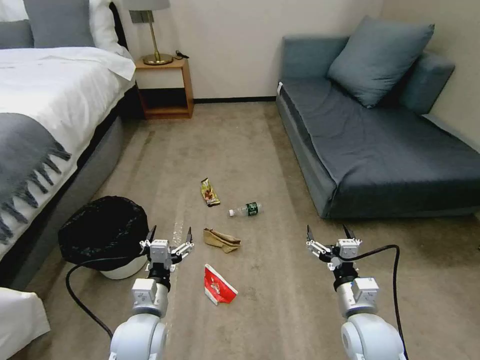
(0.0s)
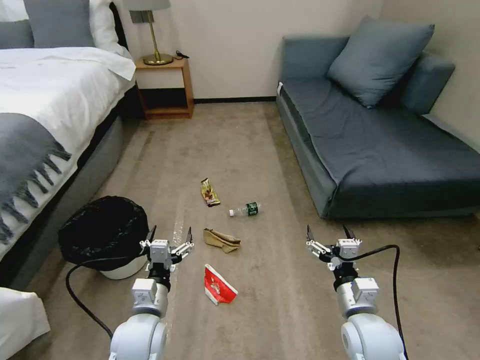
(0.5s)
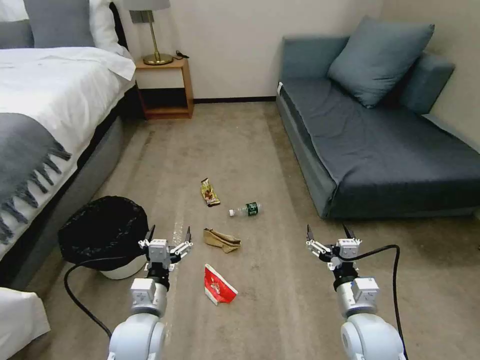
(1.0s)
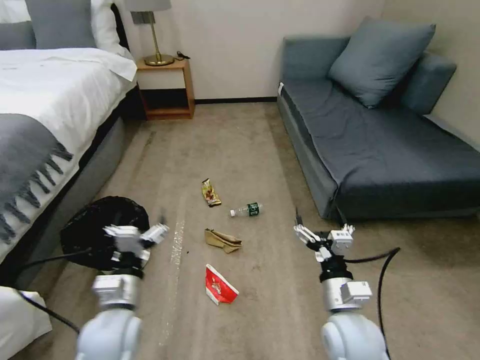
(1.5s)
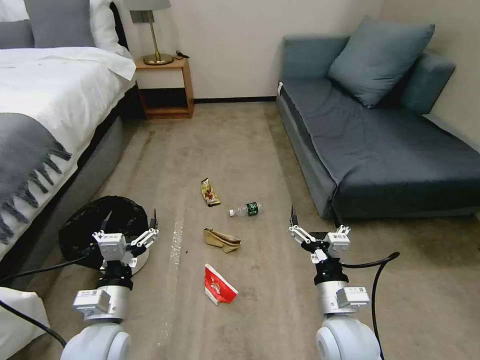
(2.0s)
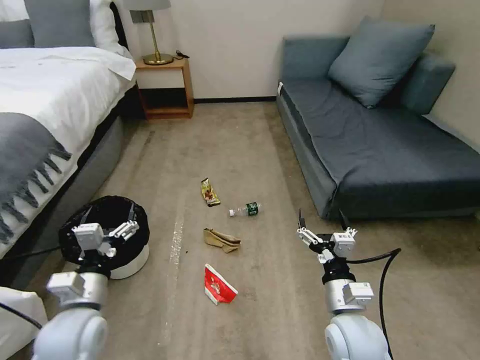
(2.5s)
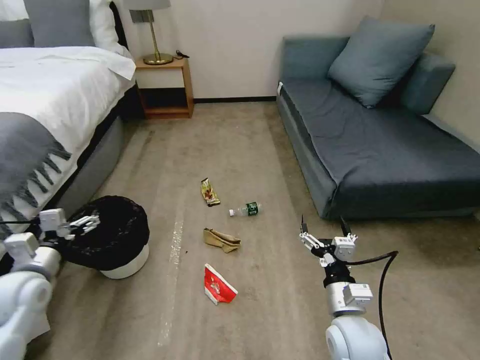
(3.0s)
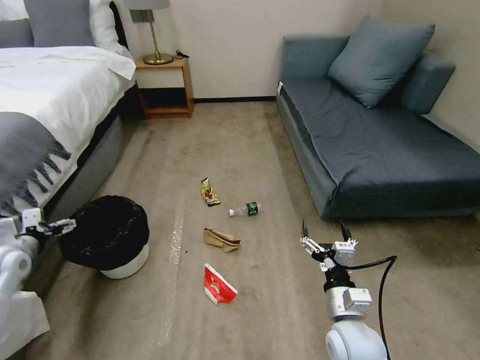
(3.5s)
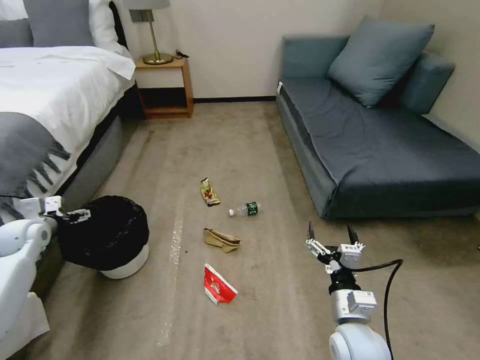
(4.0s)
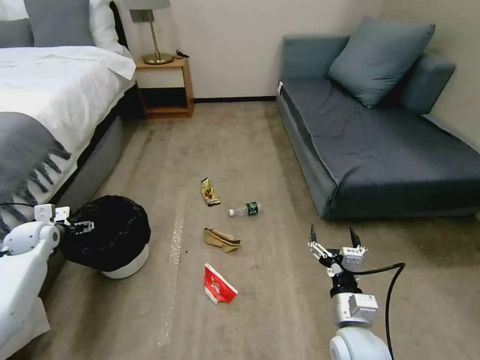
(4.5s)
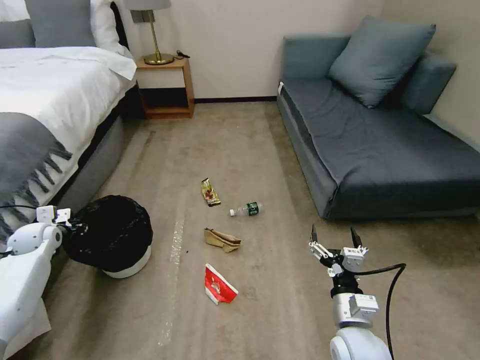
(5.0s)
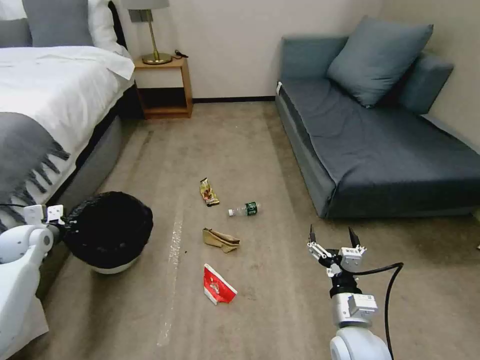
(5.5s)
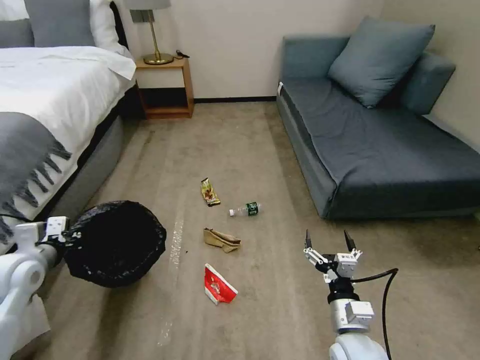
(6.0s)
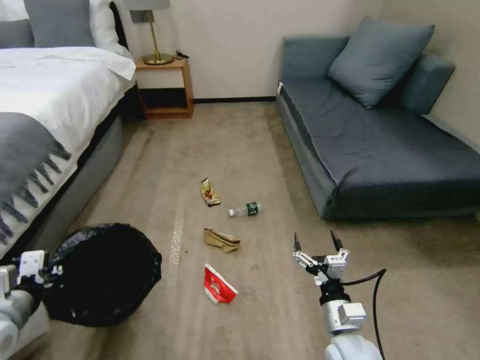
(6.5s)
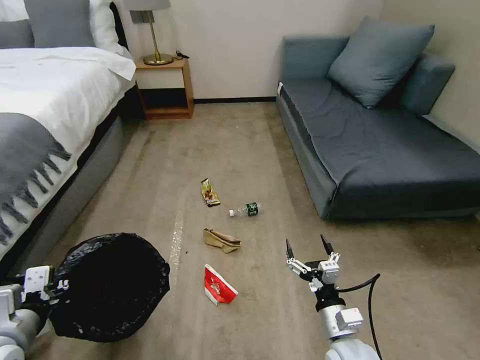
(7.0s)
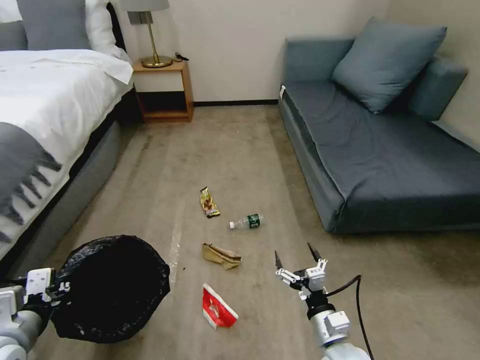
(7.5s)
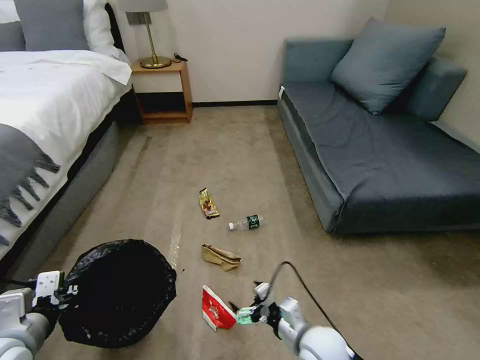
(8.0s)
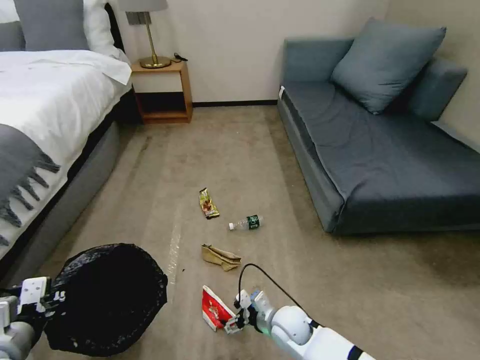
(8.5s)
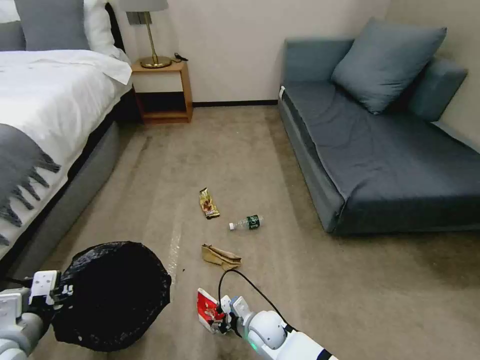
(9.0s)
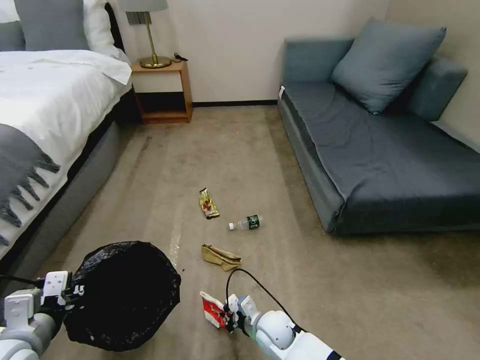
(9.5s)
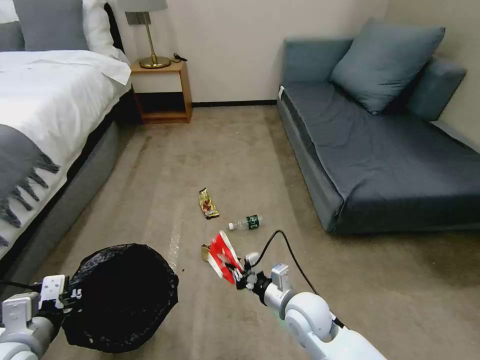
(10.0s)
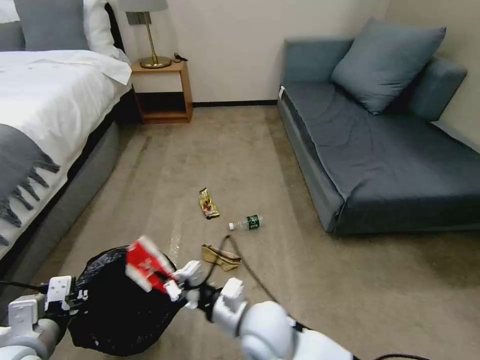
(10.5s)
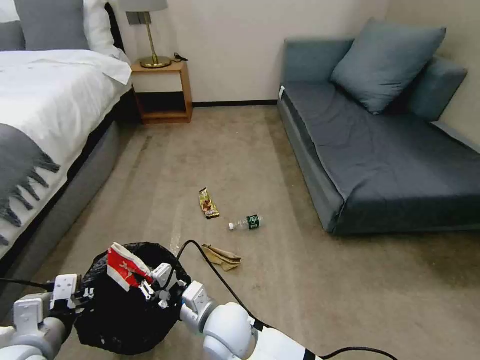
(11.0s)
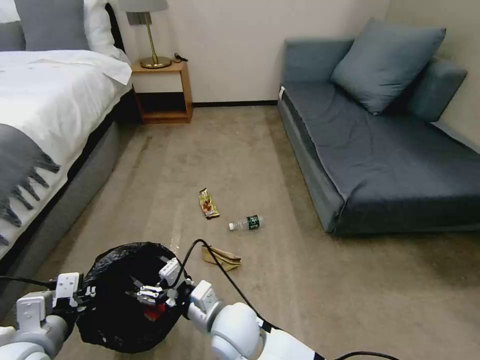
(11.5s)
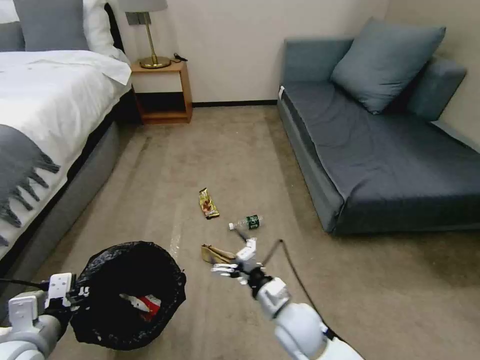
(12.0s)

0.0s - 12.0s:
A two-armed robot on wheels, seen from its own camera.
Task of the whole recording: Pick up the trash bin, then pick up the garbage on the floor and place it into the trash bin.
2.0s - 4.0s: The left gripper is displaced to the left and forward by approximately 35 cm, while the right gripper moves about 5 cm.
4.0s - 6.0s: The left gripper heads backward and to the right, covering about 15 cm, and closes up.
6.0s - 8.0s: The right gripper heads to the left, covering about 5 cm; the left gripper goes approximately 15 cm backward and to the right.
8.0s - 10.0s: The right gripper travels forward by approximately 5 cm, goes downward and returns, approximately 10 cm each way, and closes.
10.0s - 12.0s: The right gripper goes to the left and returns, about 20 cm each way, and opens its fingers.

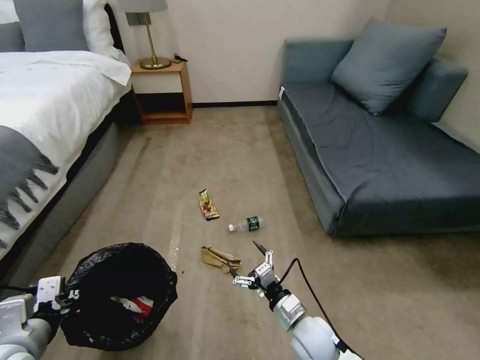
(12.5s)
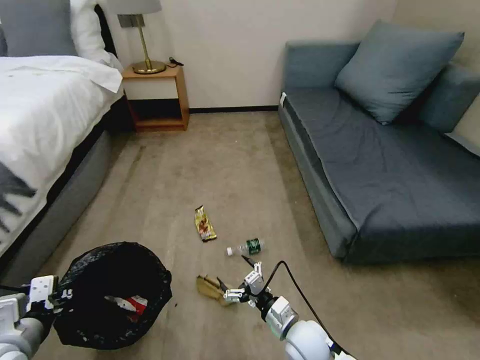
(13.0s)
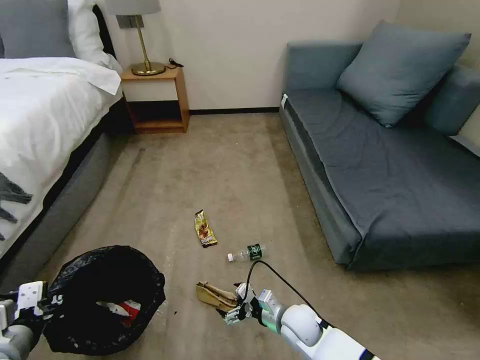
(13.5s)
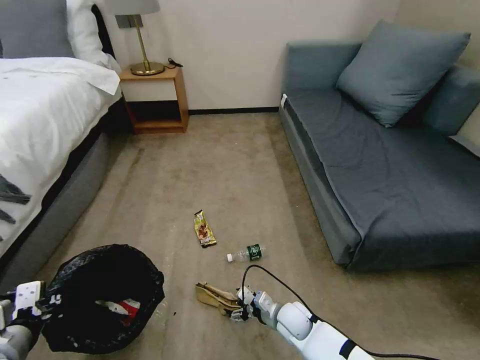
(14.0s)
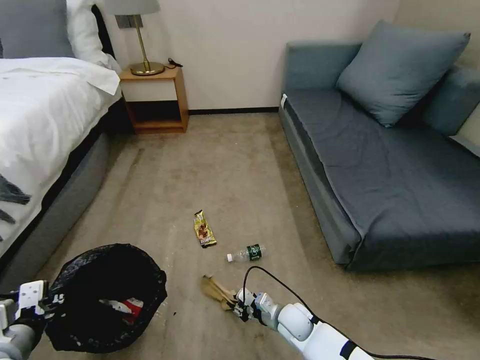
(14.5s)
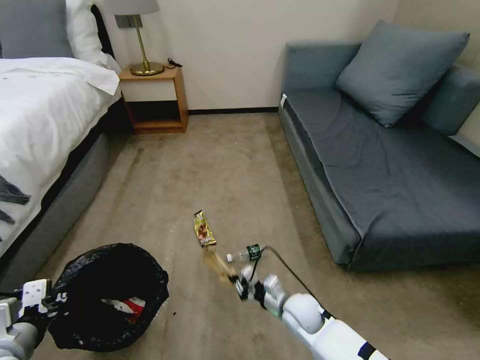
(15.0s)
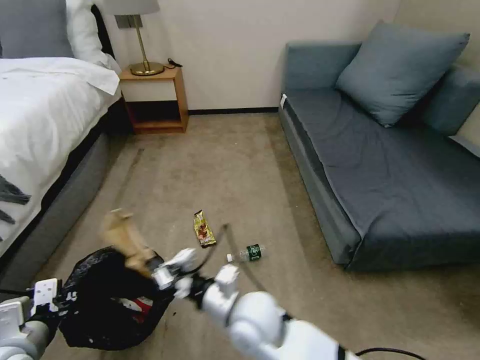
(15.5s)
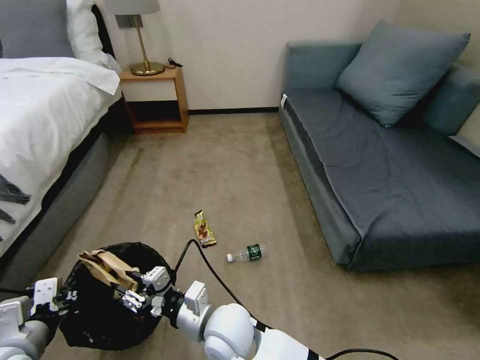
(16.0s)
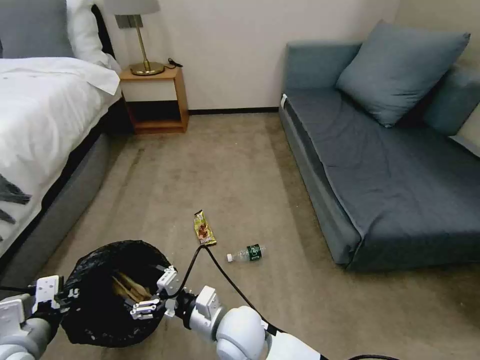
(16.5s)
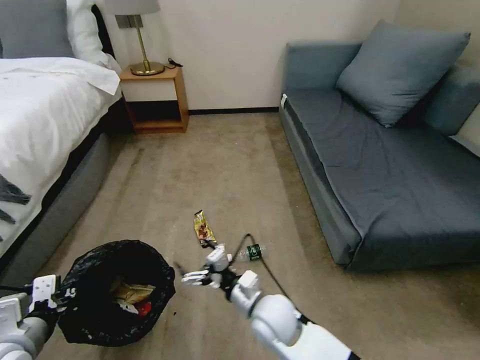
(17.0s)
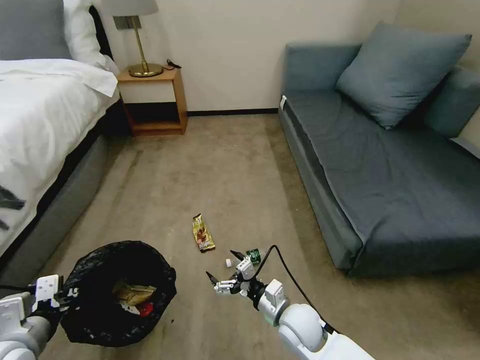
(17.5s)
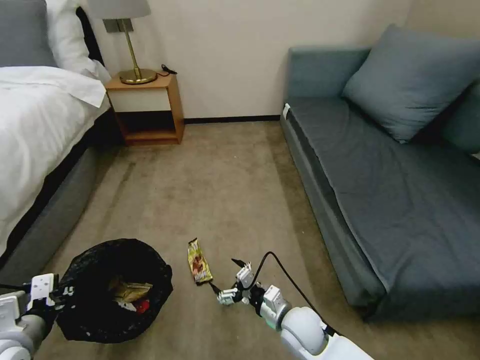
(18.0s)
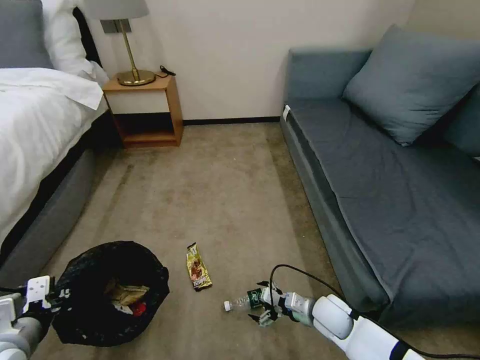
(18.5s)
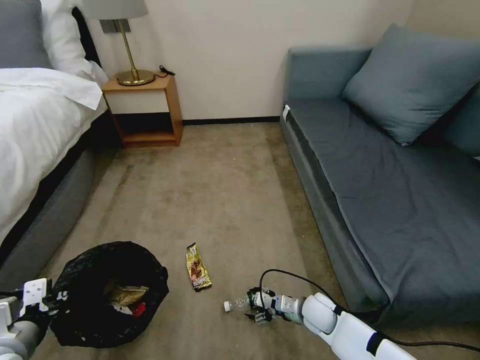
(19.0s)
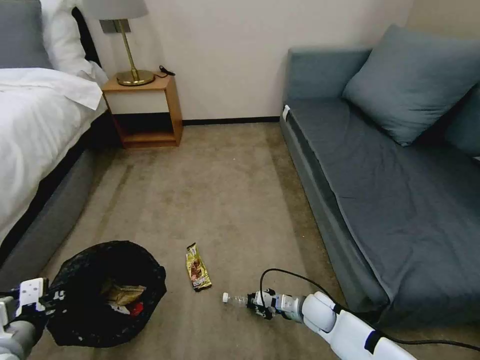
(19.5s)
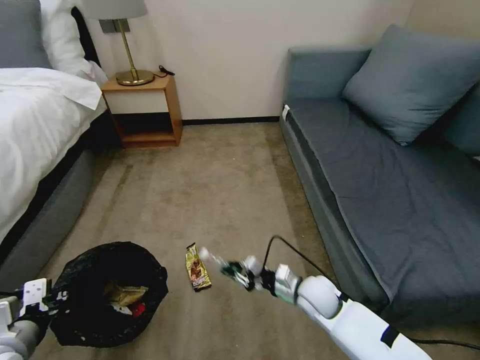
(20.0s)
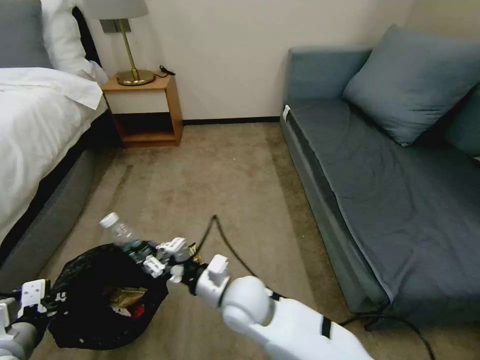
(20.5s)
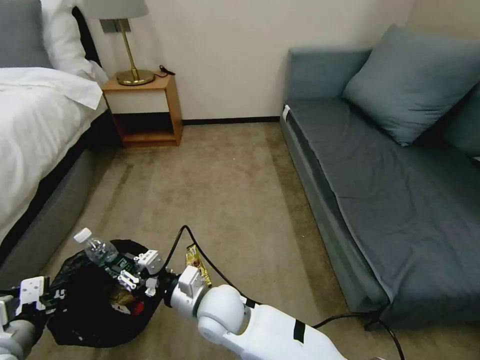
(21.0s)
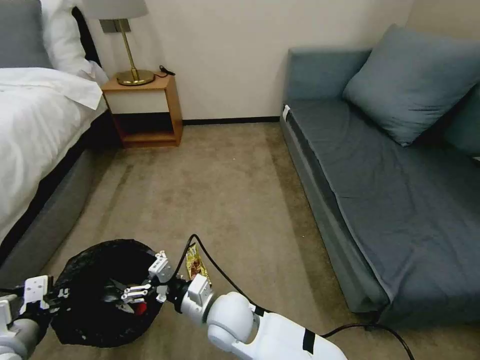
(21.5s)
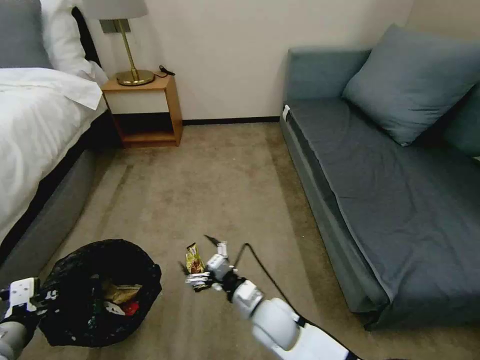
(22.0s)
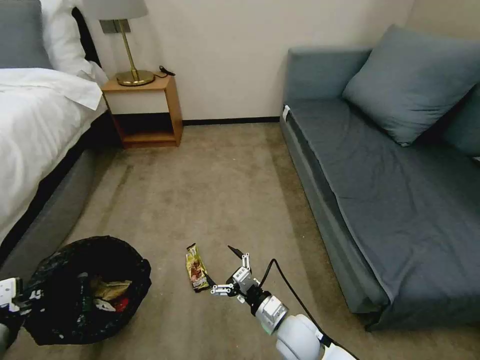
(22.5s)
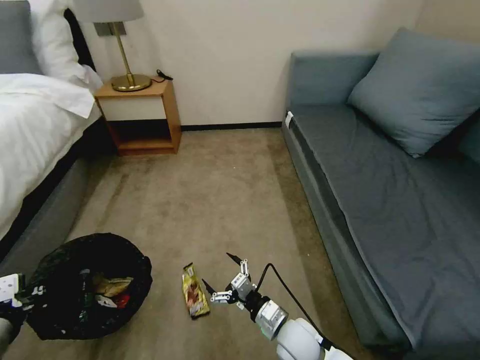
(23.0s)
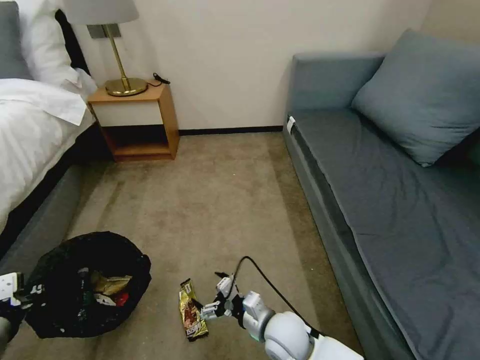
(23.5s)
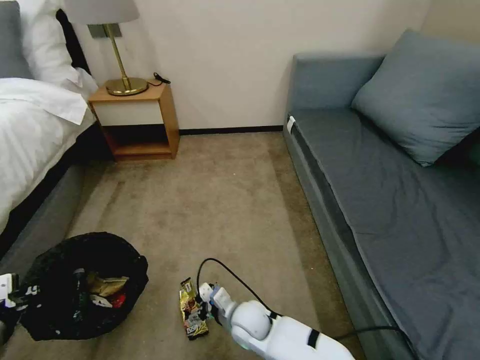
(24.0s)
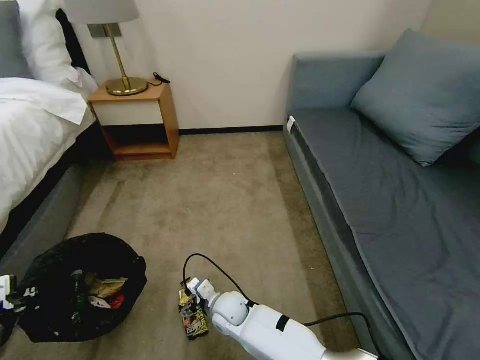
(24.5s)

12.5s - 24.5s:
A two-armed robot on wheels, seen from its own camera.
Task of the whole recording: Pick up the trash bin, then pick up the garbage on the floor and place it into the trash bin.
12.5s - 14.5s: The right gripper travels downward and forward by about 10 cm, and closes.
14.5s - 16.5s: The right gripper is displaced upward and to the left by about 25 cm, and opens its fingers.
16.5s - 18.5s: The right gripper is displaced to the right and downward by about 30 cm.
18.5s - 20.5s: The right gripper moves to the left and upward, some 30 cm, and closes its fingers.
20.5s - 22.5s: The right gripper travels downward and to the right by about 15 cm, and opens.
22.5s - 24.5s: The right gripper is displaced to the left and forward by roughly 15 cm.

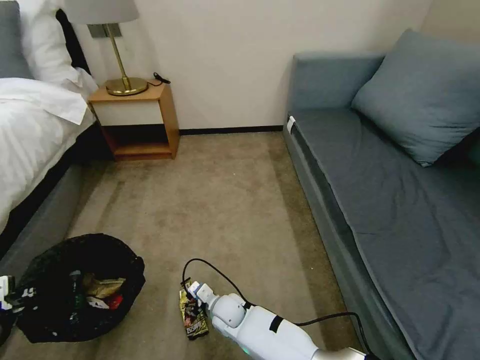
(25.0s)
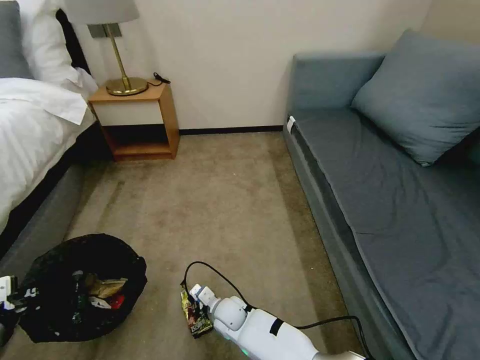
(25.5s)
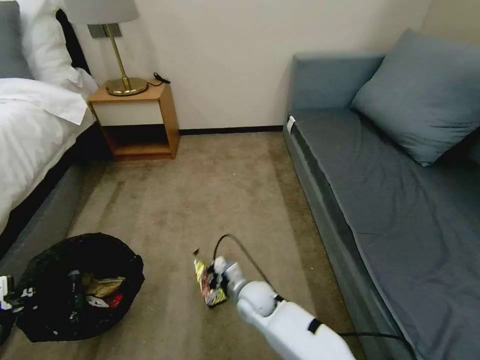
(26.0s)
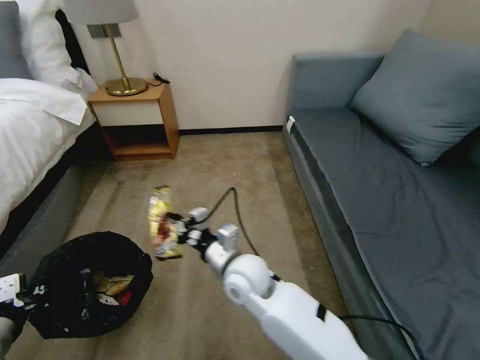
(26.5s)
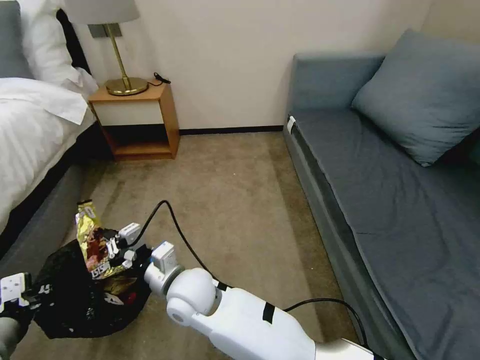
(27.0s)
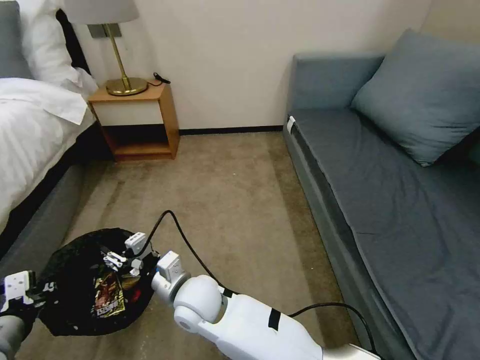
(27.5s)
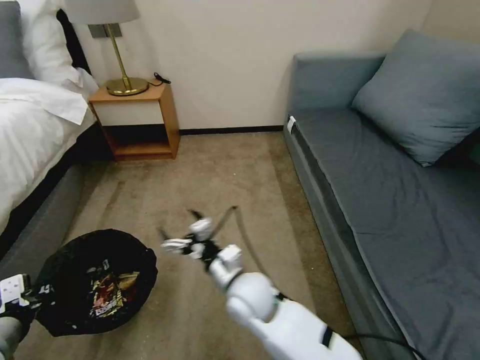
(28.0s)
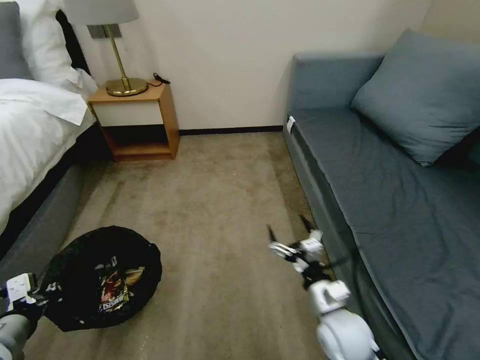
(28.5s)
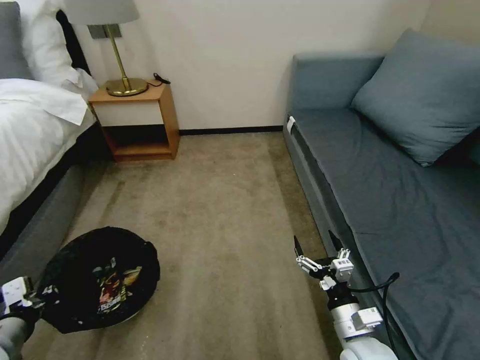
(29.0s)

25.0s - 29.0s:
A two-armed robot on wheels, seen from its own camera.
Task of the whole recording: Pick up the trash bin, then pick up the garbage on the floor and place it into the trash bin.
25.0s - 27.0s: The right gripper is displaced upward by some 20 cm, and closes up.
27.0s - 29.0s: The right gripper goes roughly 35 cm to the right, and opens.
